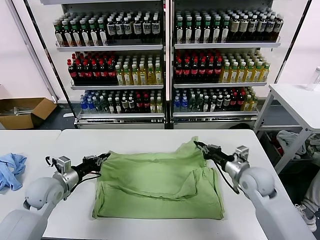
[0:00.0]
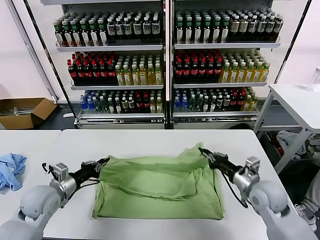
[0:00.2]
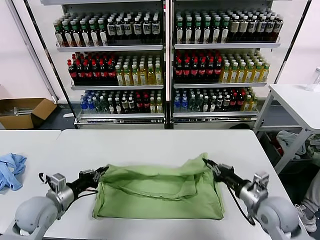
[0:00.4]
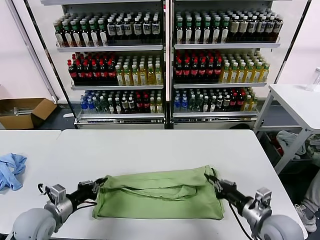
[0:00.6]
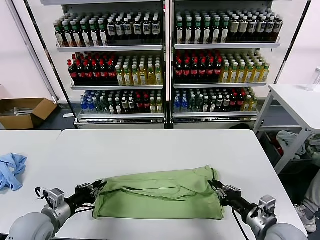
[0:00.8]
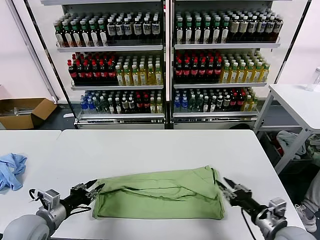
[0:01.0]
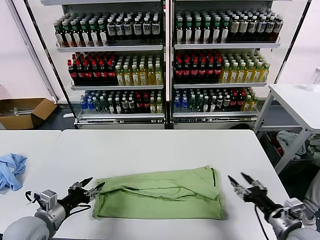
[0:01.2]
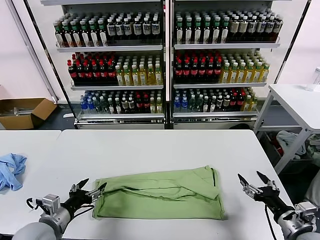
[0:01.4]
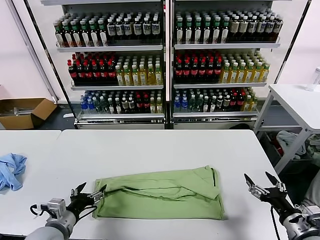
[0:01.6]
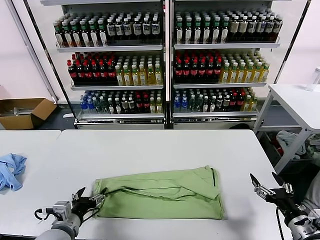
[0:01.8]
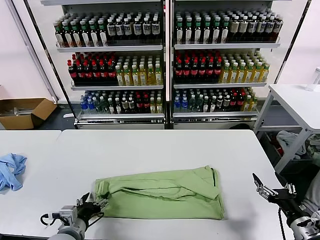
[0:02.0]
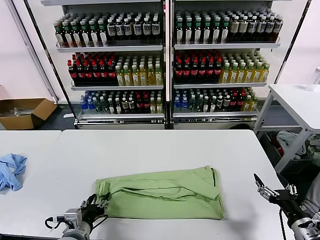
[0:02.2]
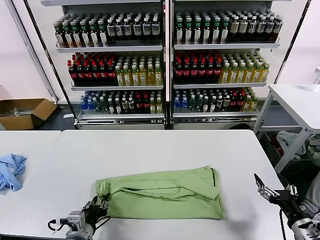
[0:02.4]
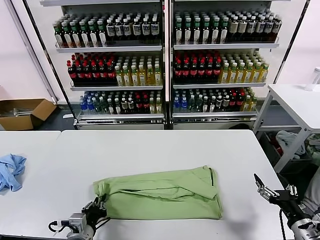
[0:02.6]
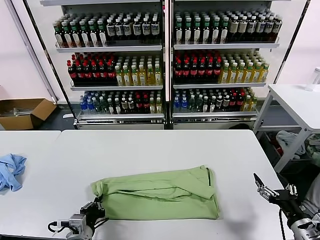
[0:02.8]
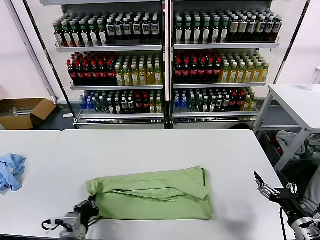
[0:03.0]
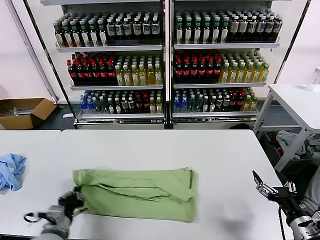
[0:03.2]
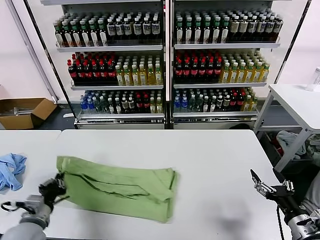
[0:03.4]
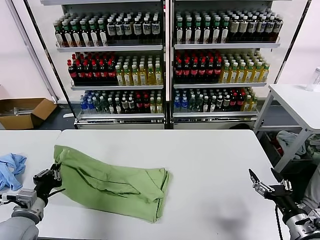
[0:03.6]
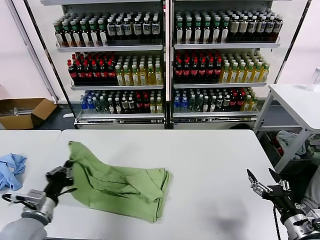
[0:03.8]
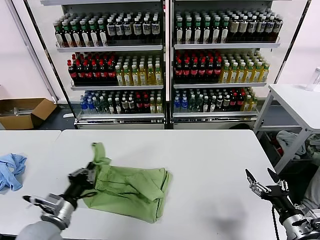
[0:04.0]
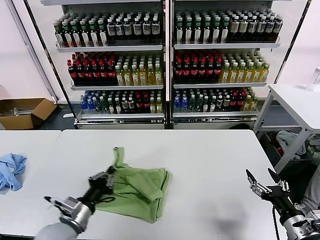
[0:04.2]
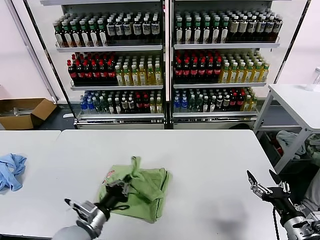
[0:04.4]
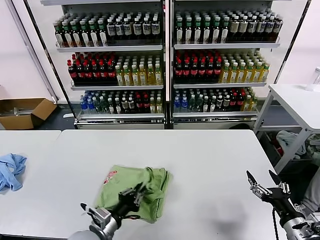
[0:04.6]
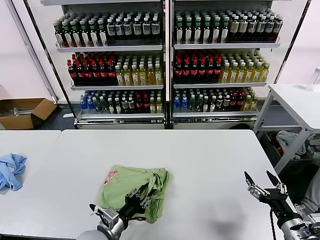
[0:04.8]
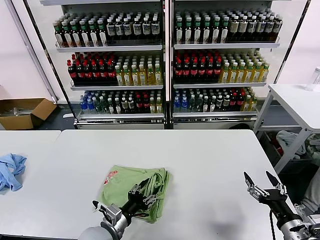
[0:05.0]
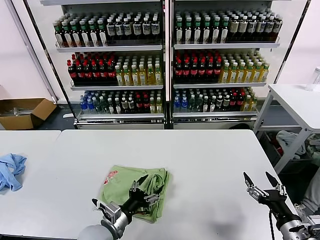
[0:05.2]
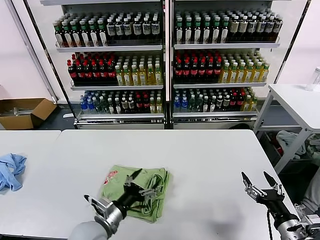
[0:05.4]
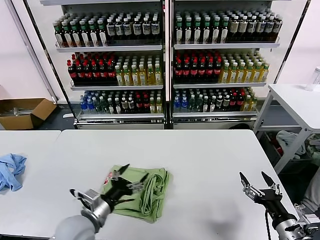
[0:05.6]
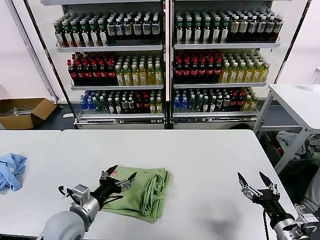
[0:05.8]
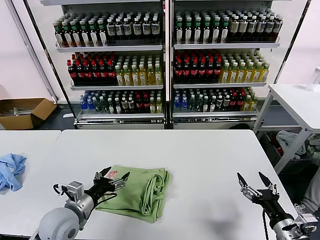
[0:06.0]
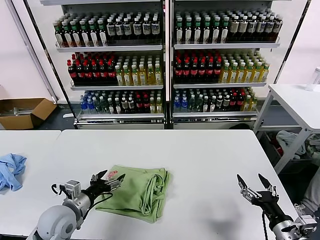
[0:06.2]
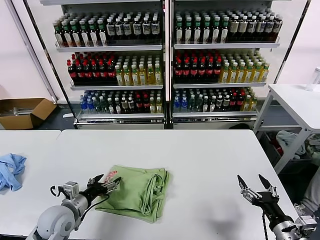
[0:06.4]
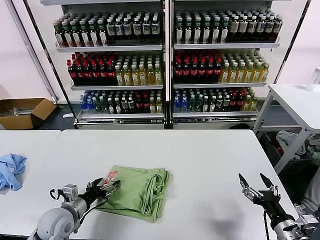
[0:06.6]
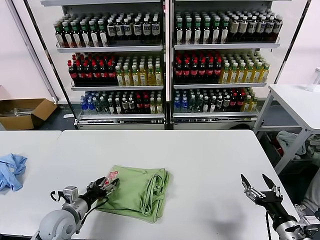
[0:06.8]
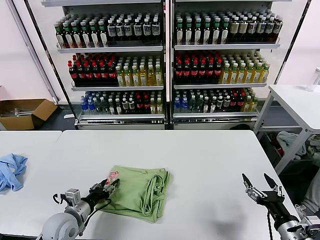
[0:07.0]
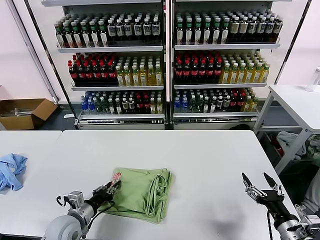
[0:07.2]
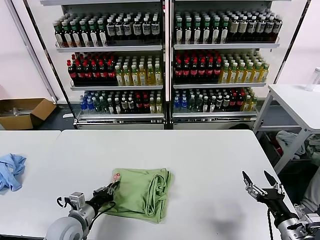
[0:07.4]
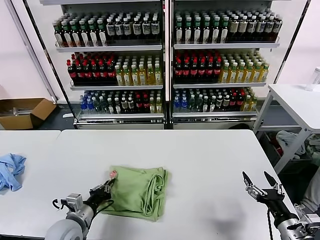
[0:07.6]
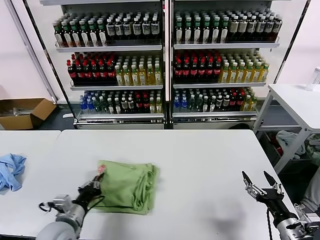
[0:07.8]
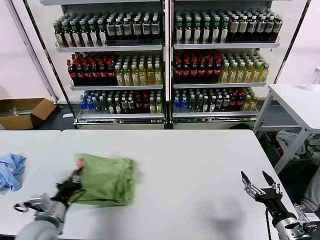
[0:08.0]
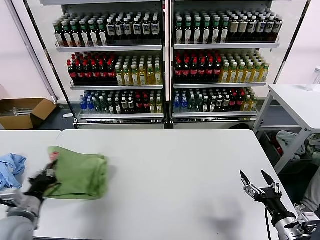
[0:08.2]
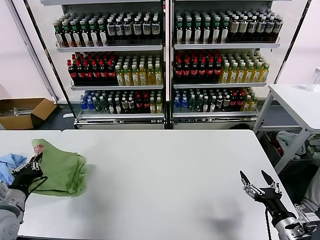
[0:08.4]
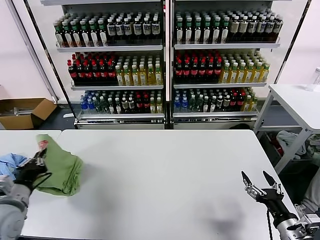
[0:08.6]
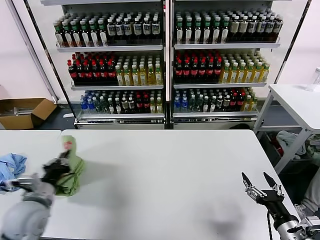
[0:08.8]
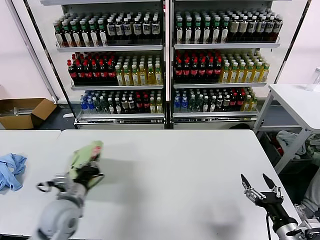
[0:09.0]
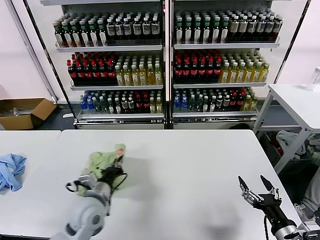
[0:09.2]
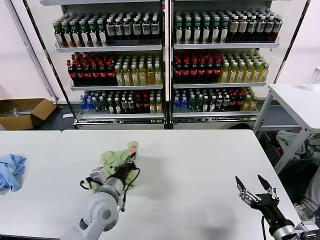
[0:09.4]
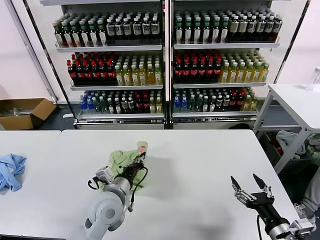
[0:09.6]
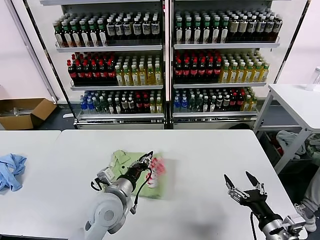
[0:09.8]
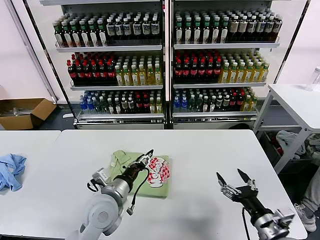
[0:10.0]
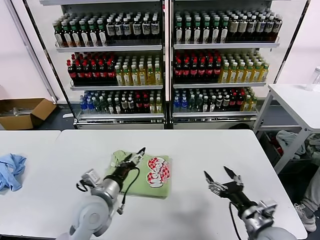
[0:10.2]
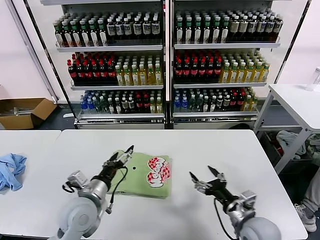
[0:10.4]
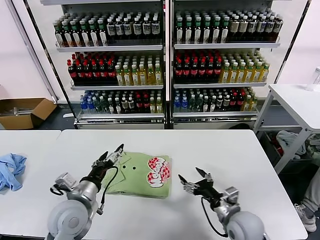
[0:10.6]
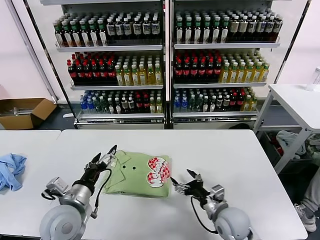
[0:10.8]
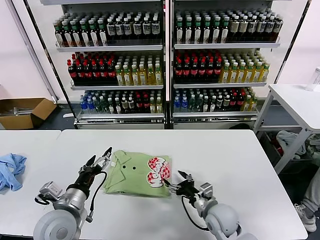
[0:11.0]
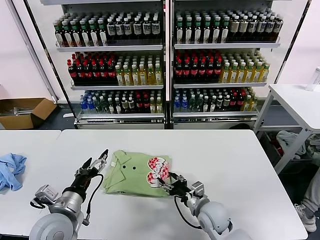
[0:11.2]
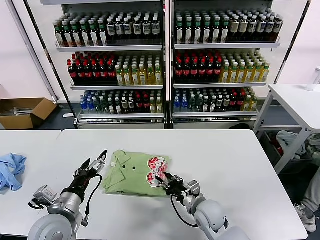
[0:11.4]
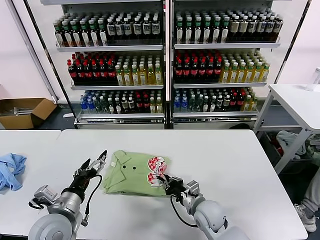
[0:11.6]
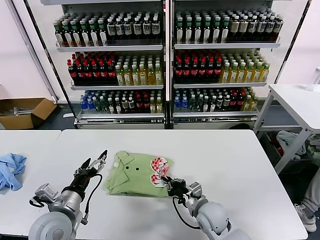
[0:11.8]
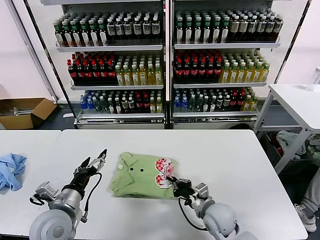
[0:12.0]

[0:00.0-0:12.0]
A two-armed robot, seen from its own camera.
Task of the whole recording: fold and organize the clothes.
Step, 0:01.2 to 0:02.6: use the left gripper to clamp the left edge of the fabric.
Step, 0:03.0 to 0:05.0: use the left gripper to drag the left edge of the fabric to the left and folds it over the right edge.
Step, 0:05.4 to 0:09.8: Flip the folded clothes over with left gripper.
0:00.0 to 0:01.6: The left gripper goes about 15 cm backward, and opens its fingers. The right gripper is displaced backward and to the right by some 20 cm, and opens its fingers.
0:01.6 to 0:03.0: The left gripper ends up some 5 cm from where it was, and closes its fingers.
0:03.0 to 0:04.4: The left gripper reaches some 10 cm to the left, then returns.
0:04.4 to 0:06.0: The left gripper shifts by approximately 5 cm, and opens up.
0:06.0 to 0:07.6: The left gripper travels downward by roughly 5 cm, and closes.
0:07.6 to 0:09.0: The left gripper moves upward, about 10 cm, and goes to the left and returns, approximately 15 cm each way.
0:09.0 to 0:10.4: The right gripper shifts approximately 15 cm to the left and forward. The left gripper is displaced to the right by some 5 cm, and opens.
0:10.4 to 0:12.0: The left gripper is displaced to the left by roughly 5 cm. Meanwhile the right gripper travels to the left, forward and downward by some 10 cm, and closes.

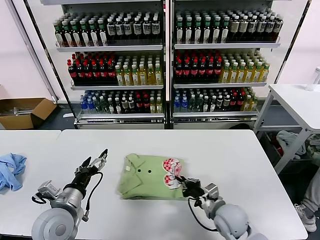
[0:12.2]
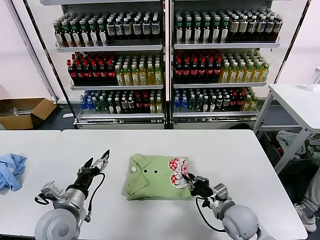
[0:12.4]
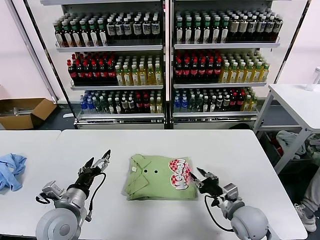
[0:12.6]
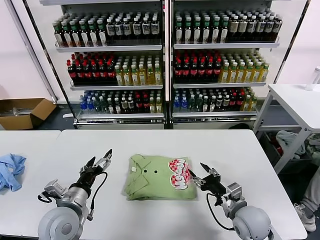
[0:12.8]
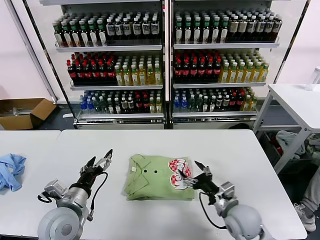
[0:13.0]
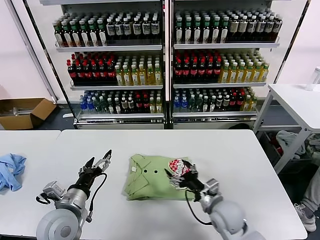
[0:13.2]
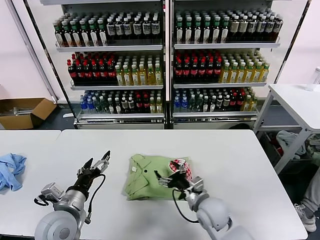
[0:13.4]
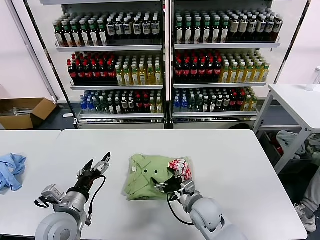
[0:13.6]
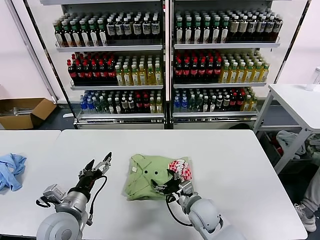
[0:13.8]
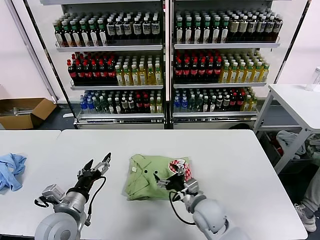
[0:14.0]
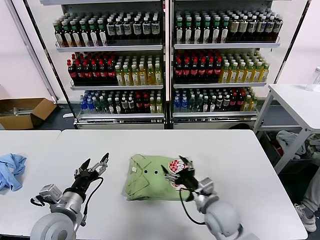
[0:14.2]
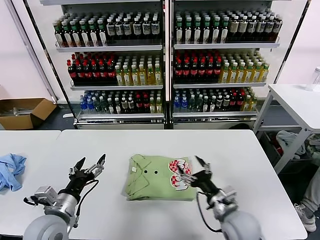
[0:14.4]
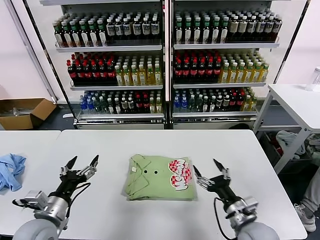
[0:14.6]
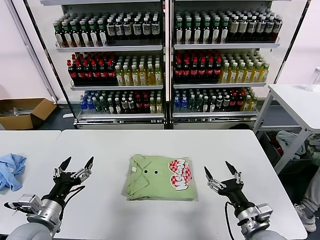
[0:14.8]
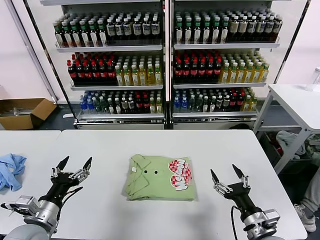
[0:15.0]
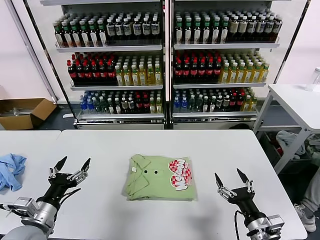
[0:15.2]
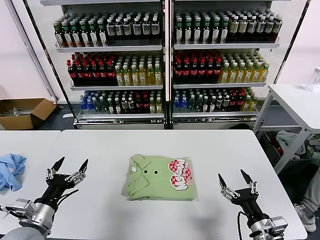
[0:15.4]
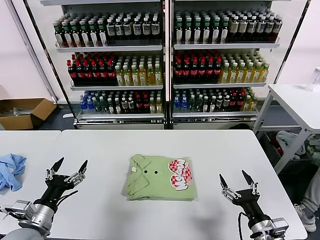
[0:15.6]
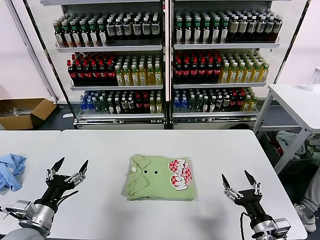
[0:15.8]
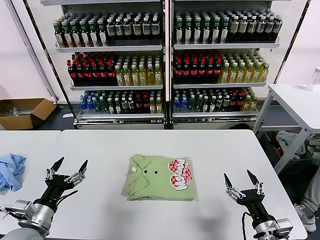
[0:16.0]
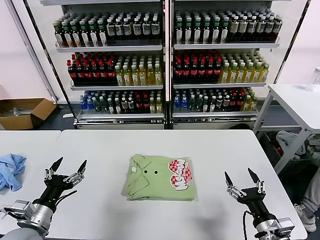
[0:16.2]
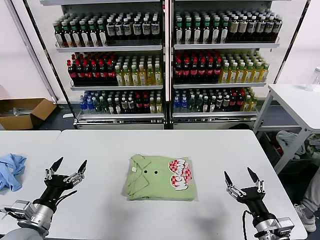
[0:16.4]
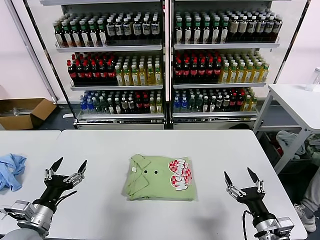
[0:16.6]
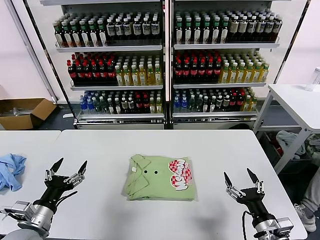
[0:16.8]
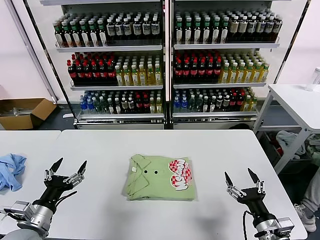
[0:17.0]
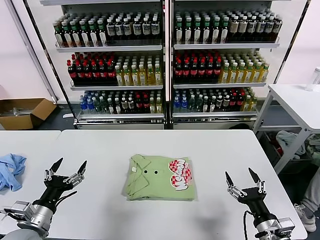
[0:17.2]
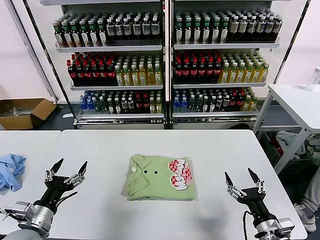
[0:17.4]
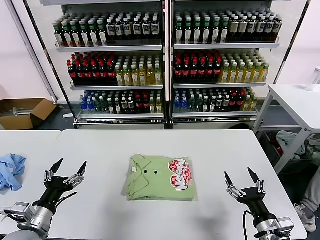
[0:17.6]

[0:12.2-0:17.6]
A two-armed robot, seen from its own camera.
Task of the whole recording: fold and organize the clothes.
0:12.2 to 0:13.6: The right gripper moves to the left, roughly 5 cm, and opens.
0:13.6 to 0:15.0: The right gripper heads to the right and backward, covering about 20 cm; the left gripper goes some 5 cm to the left.
0:15.0 to 0:16.2: The grippers make only small movements.
0:16.2 to 0:17.6: Both grippers stay put.
